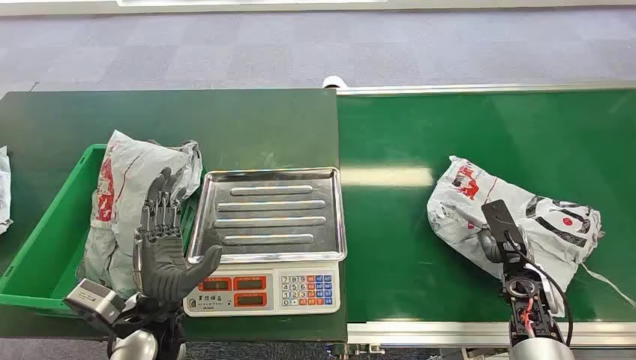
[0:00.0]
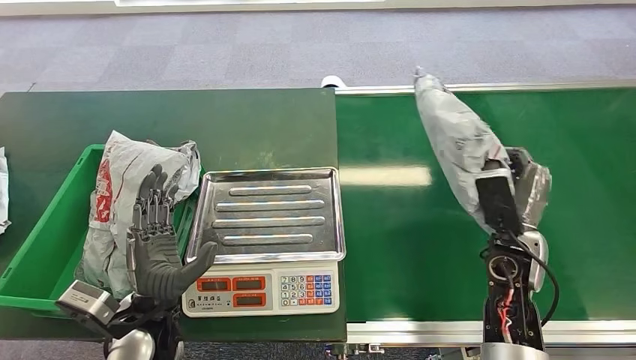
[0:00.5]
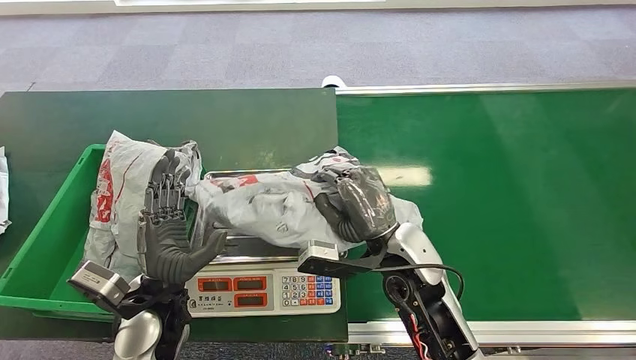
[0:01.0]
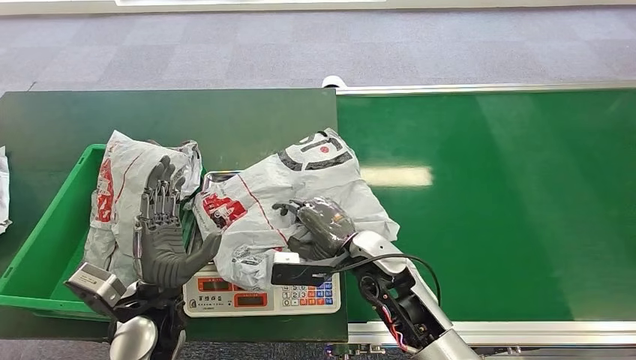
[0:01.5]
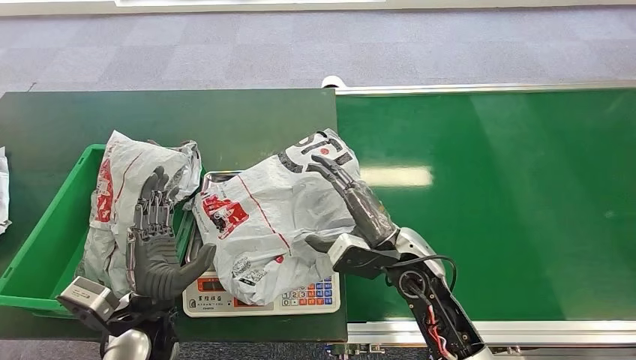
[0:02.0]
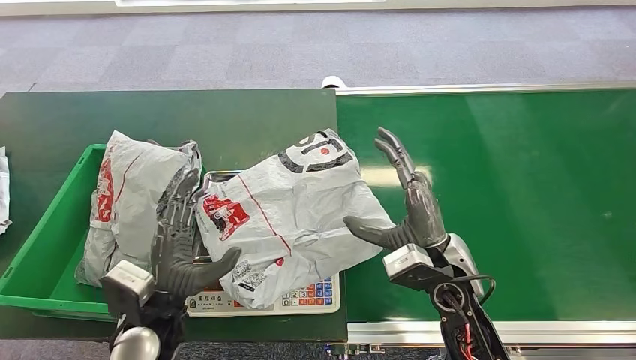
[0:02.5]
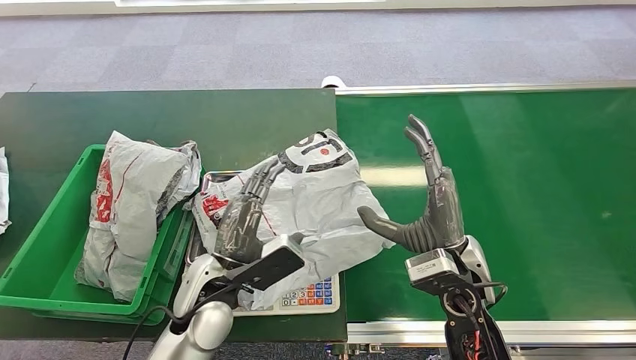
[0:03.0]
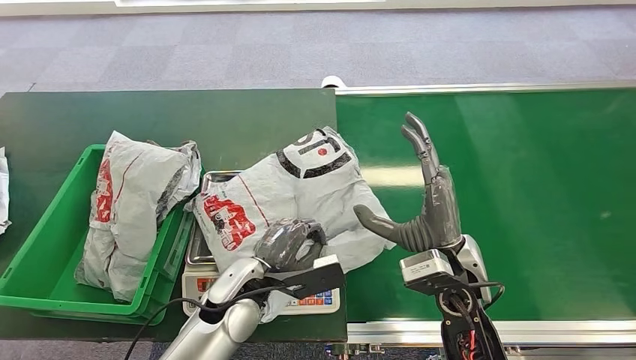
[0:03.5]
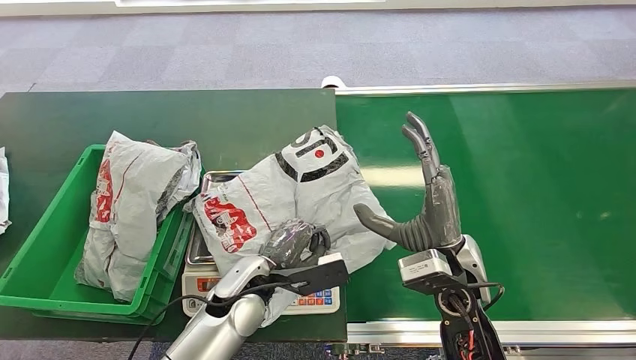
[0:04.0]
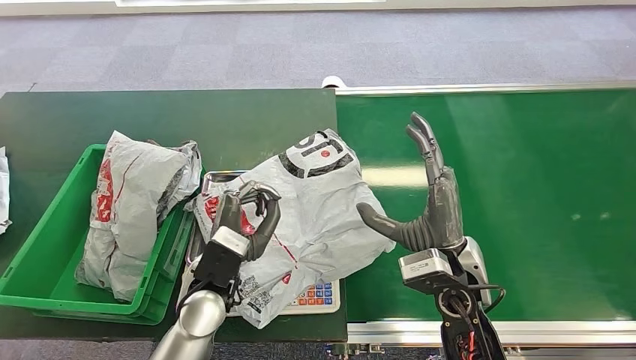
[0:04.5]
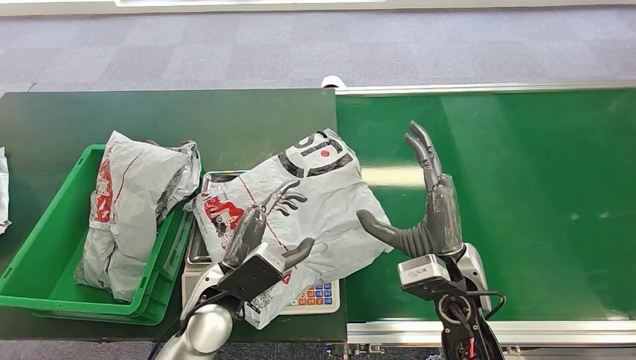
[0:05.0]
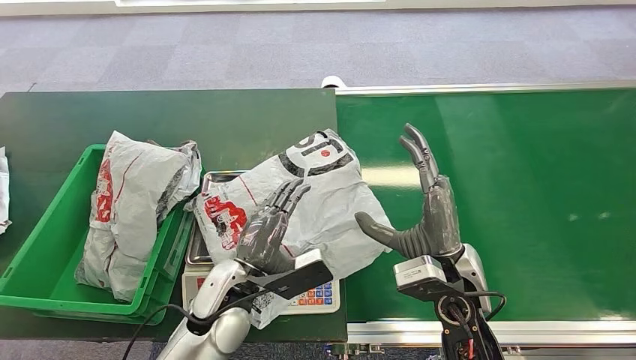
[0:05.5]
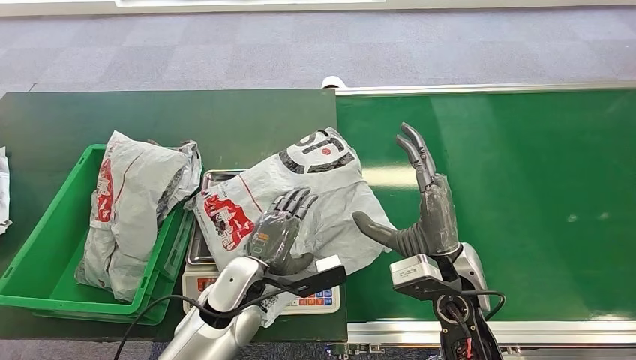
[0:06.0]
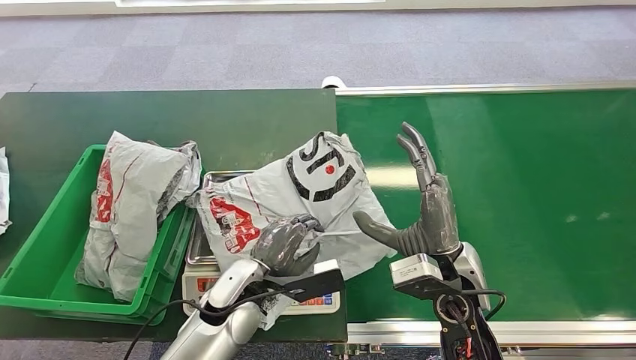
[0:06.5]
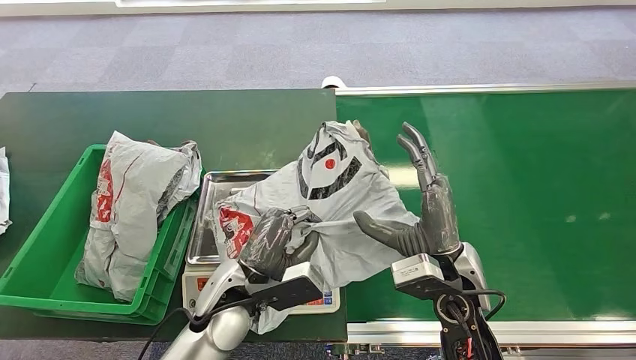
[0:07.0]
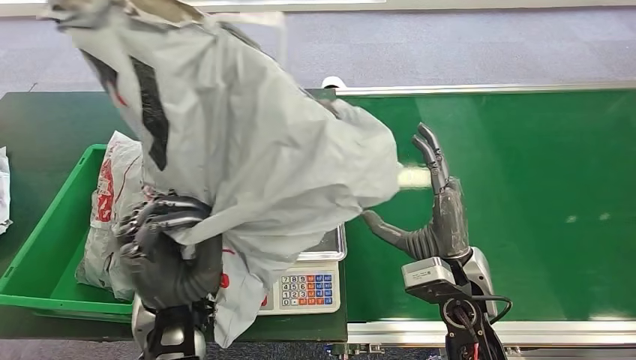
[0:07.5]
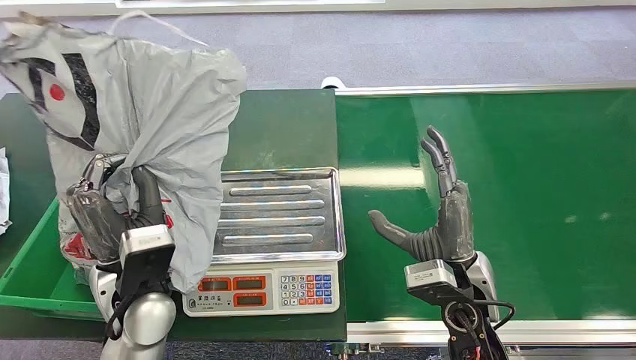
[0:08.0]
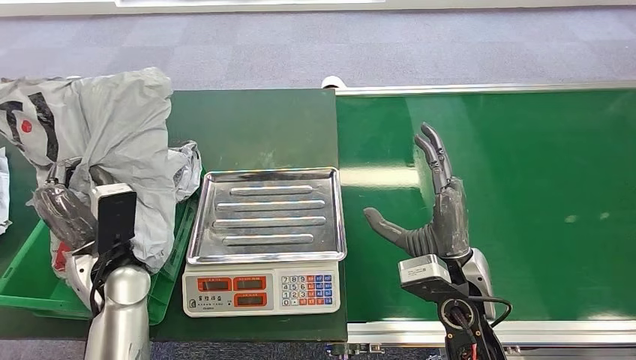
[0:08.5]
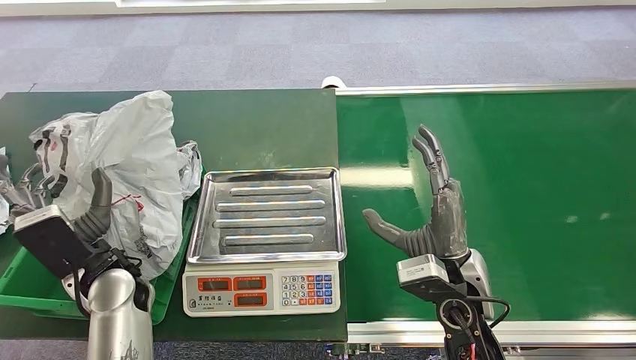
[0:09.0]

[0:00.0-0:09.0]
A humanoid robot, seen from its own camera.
Step, 0:00.0 to 0:00.5: Pick up the package from the conveyor belt.
Step, 0:01.0 to 0:01.5: Place the package onto the inbound machine.
Step, 0:07.0 to 0:07.5: Pick up the package from the inbound machine.
Step, 0:08.5 to 0:09.0: Place the package into the parcel locker.
0:02.0 to 0:04.5: The right hand shifts by some 5 cm. Meanwhile the left hand goes about 10 cm to the right and forward.
